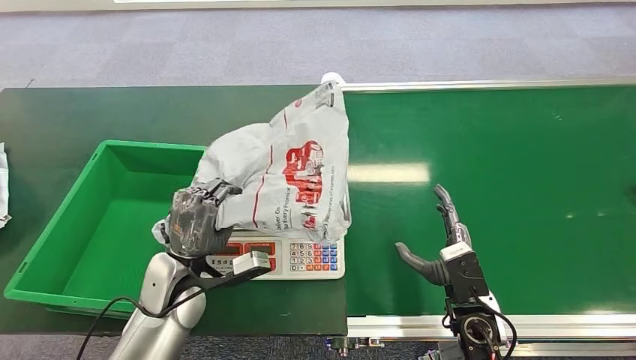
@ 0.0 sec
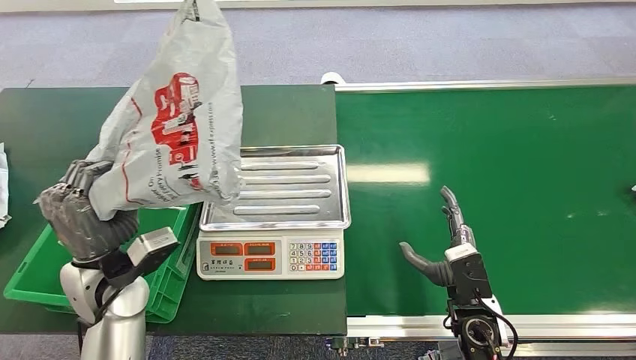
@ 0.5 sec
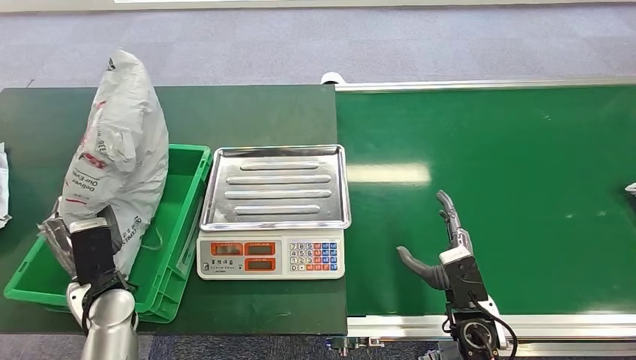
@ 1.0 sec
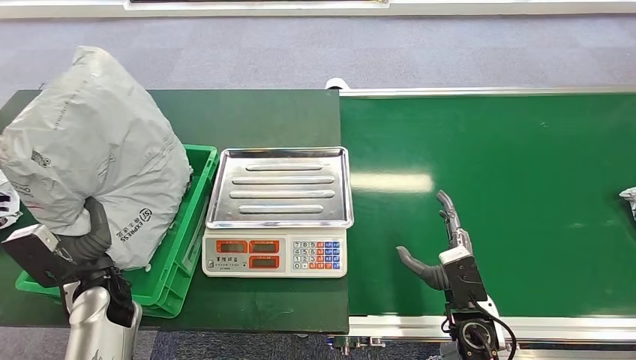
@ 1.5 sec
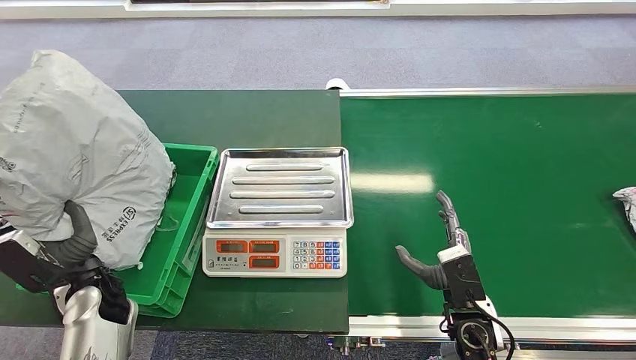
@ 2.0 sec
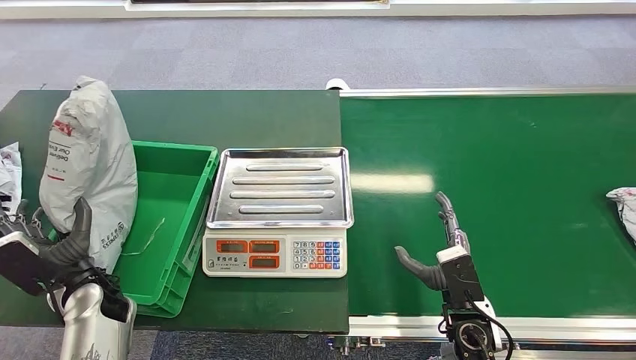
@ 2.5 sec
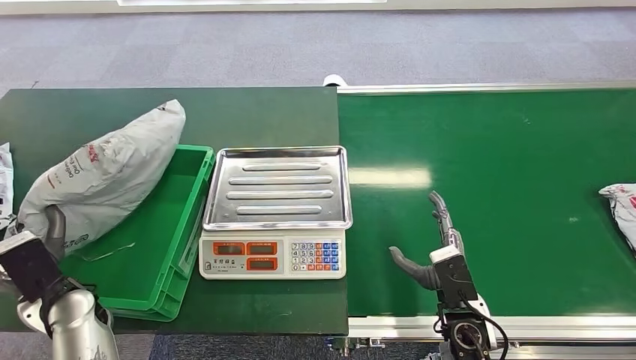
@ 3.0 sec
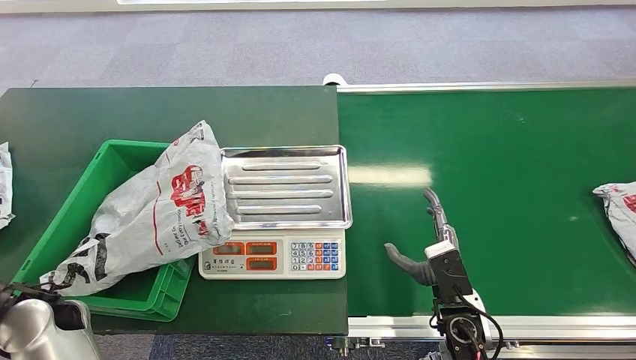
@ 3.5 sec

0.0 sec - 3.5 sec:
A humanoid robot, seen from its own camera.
Step, 1.0 sec - 3.5 sec: Place the package into the parcel locker.
